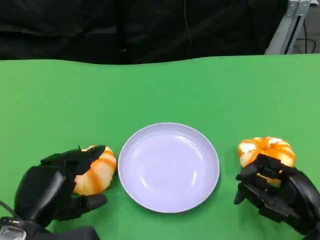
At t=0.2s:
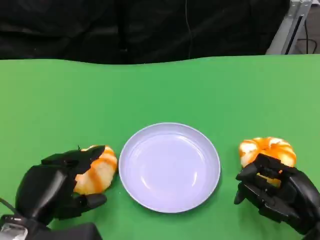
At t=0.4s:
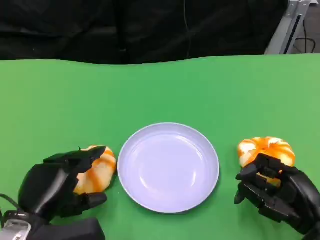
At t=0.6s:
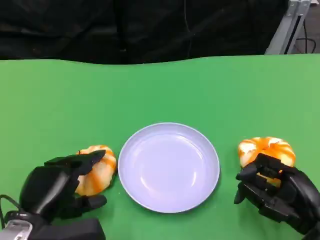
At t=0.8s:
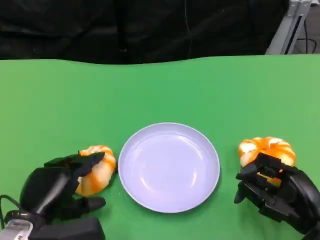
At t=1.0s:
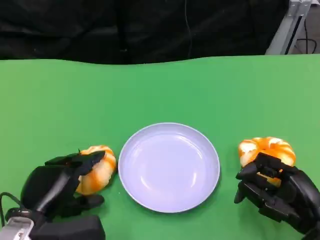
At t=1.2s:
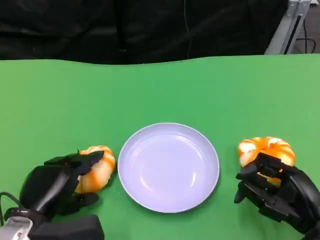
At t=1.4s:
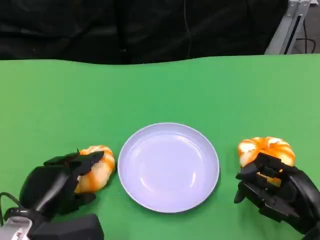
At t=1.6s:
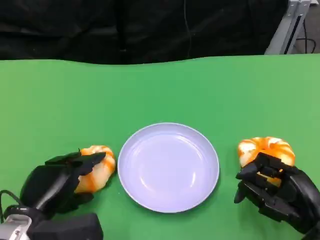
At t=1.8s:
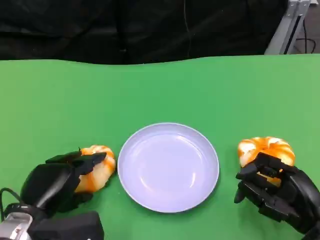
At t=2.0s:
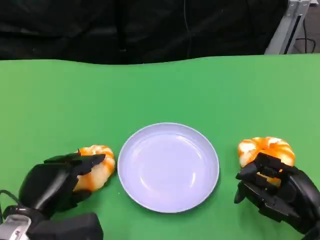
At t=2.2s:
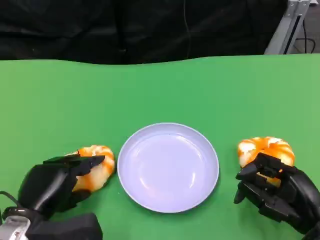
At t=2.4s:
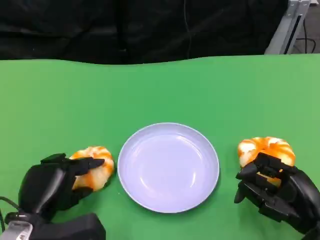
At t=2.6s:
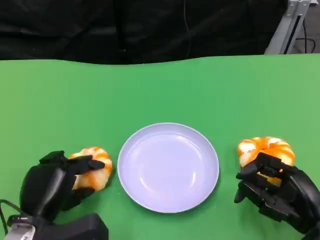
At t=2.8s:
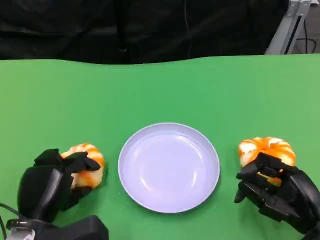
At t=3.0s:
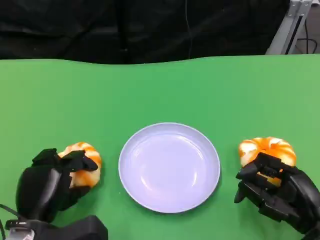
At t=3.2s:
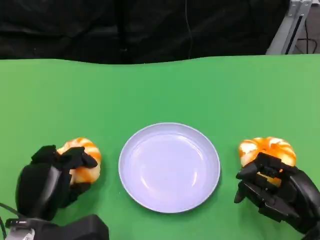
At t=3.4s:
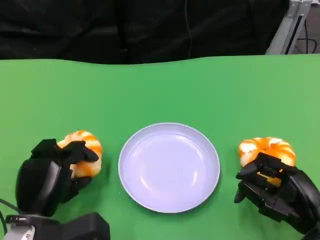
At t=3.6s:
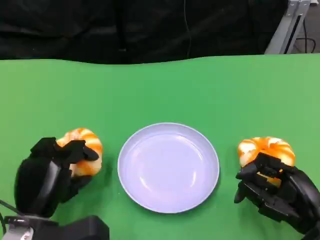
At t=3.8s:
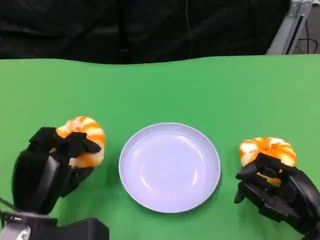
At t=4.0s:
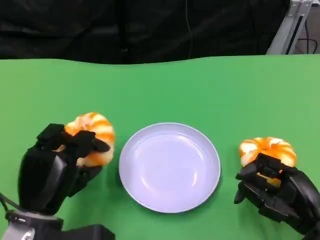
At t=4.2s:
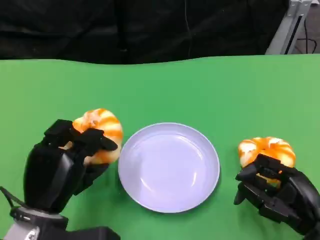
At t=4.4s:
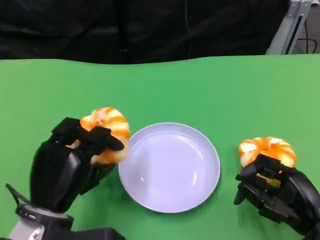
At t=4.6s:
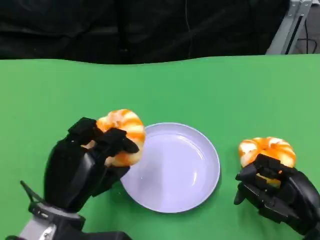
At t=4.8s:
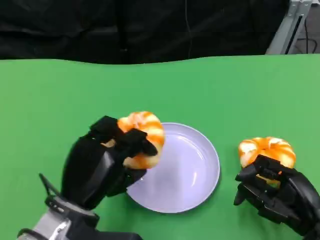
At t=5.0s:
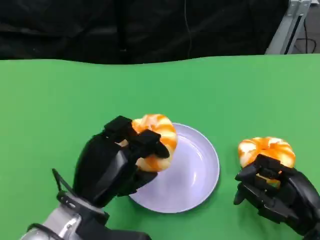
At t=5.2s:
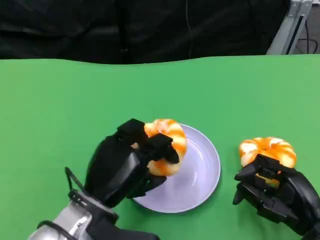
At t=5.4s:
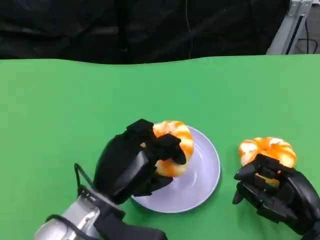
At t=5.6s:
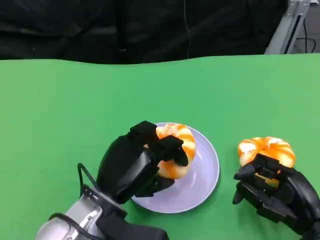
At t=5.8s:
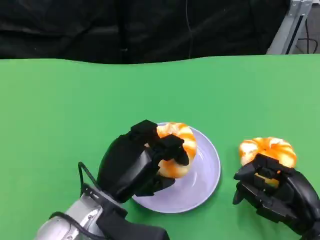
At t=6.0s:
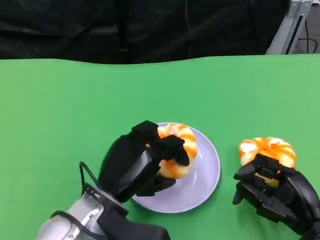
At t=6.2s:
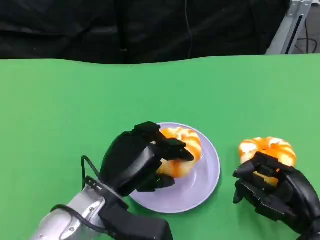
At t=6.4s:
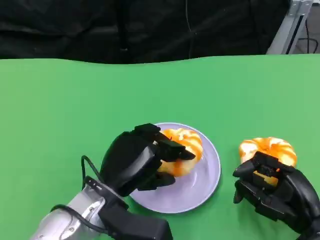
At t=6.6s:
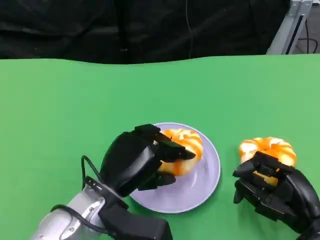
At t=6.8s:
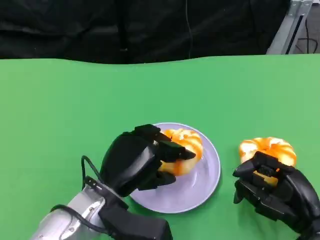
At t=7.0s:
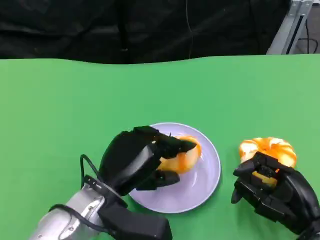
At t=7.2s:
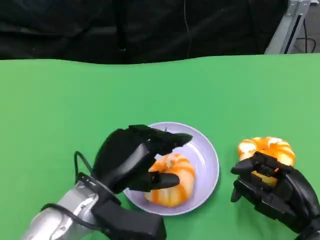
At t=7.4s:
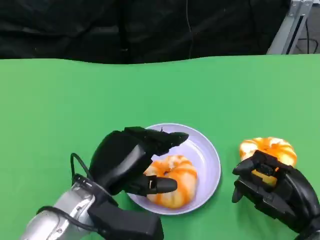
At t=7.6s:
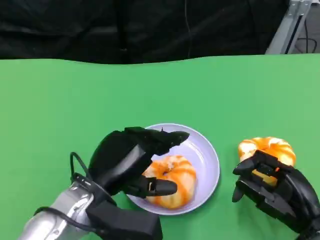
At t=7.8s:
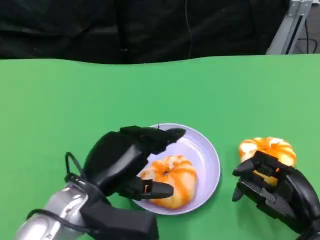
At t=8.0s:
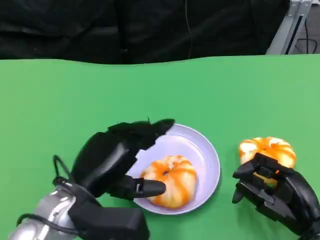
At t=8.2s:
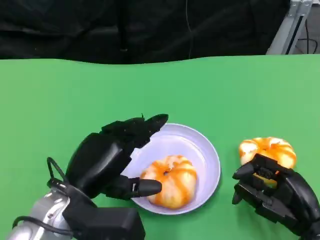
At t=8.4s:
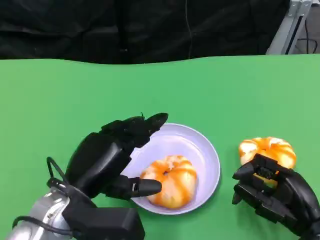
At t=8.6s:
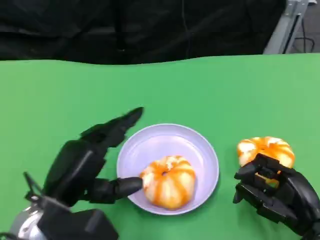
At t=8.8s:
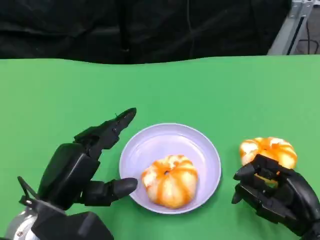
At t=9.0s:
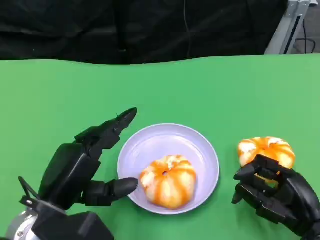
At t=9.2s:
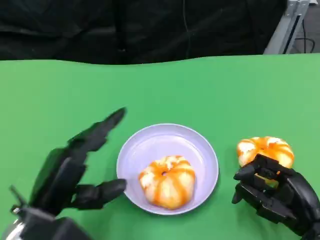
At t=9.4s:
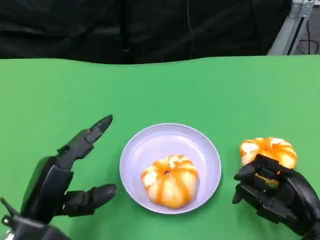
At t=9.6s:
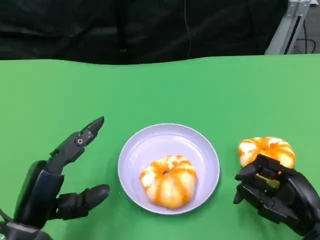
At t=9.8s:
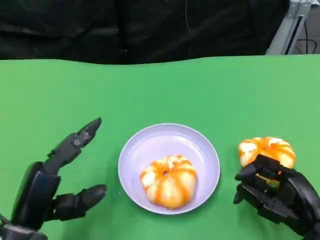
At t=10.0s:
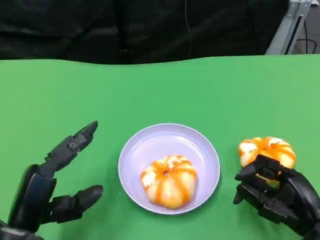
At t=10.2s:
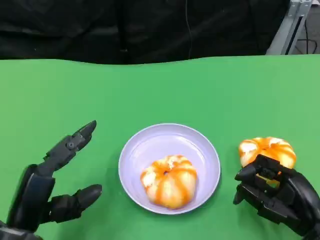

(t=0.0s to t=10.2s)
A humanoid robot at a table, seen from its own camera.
Task of the whole recording: Grasp the bread from the table and place it into the plate.
t=0.0s - t=3.0s: The hands make only small movements.
t=3.0s - t=4.4s: The left hand shifts about 5 cm upward.
t=4.4s - t=5.8s: The left hand goes approximately 5 cm to the right.
t=5.8s - t=7.2s: The hands stay close to where they were, moving slightly.
t=7.2s - t=8.8s: The left hand goes roughly 5 cm to the left.
t=8.8s - t=10.2s: The left hand ends up about 5 cm from where it was.

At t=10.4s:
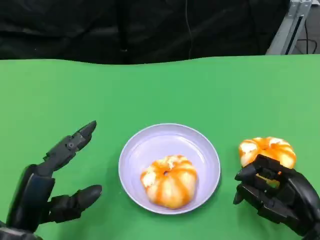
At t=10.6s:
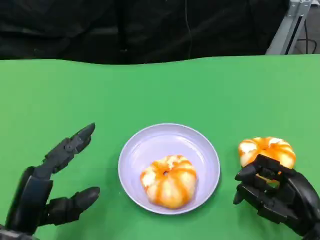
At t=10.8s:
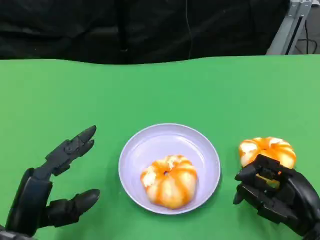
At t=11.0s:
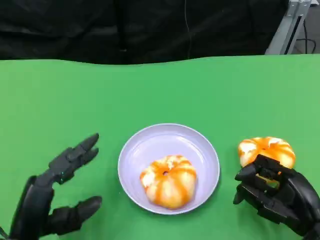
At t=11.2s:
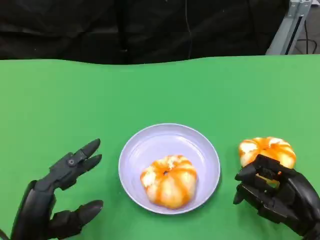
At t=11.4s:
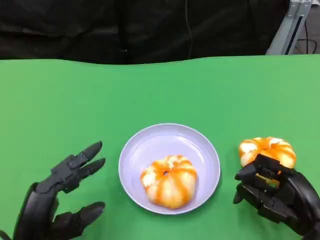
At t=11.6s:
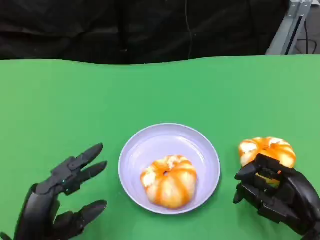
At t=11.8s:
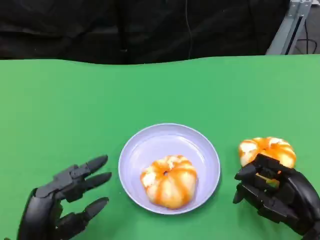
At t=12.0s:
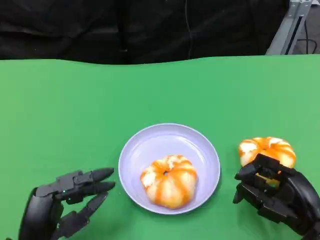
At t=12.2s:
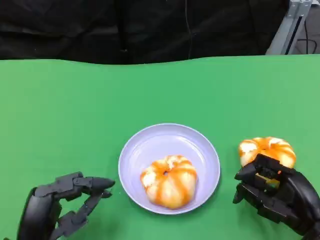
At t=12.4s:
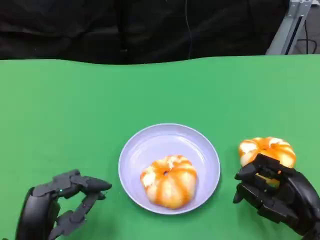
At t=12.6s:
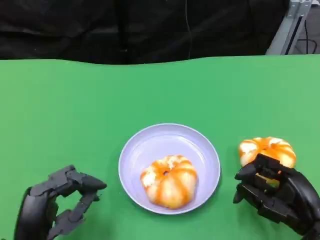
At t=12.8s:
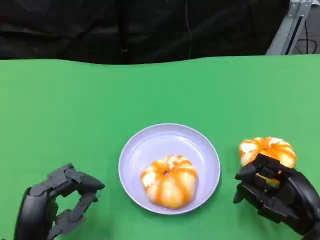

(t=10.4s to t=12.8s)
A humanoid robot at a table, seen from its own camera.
Task of the whole recording: Grasp the bread from the table and place it into the plate.
t=10.4s - t=11.6s: The hands move only a little.
t=11.6s - t=12.8s: The hands move only a little.

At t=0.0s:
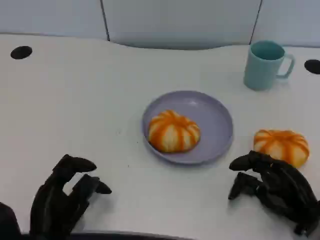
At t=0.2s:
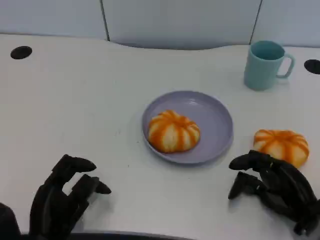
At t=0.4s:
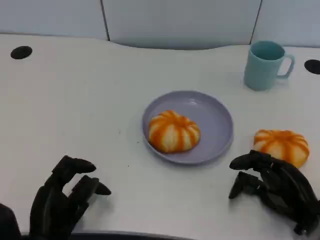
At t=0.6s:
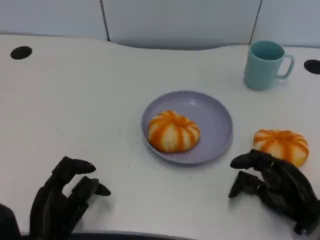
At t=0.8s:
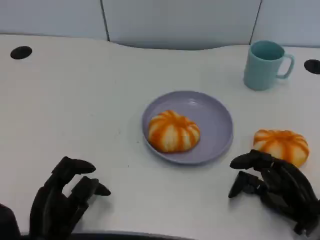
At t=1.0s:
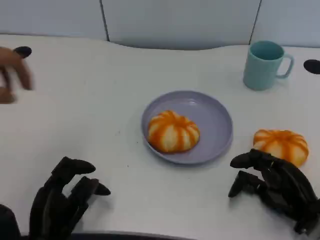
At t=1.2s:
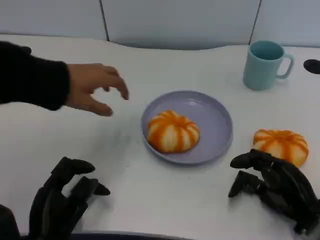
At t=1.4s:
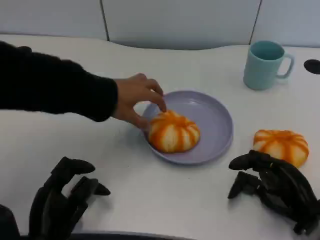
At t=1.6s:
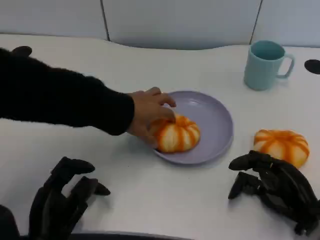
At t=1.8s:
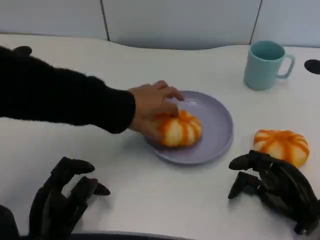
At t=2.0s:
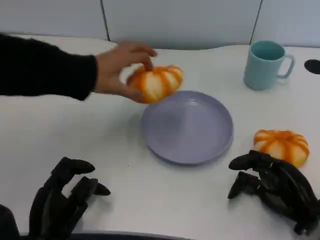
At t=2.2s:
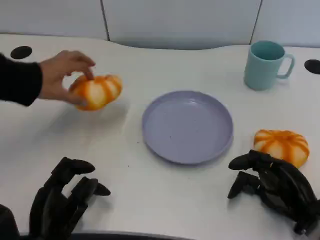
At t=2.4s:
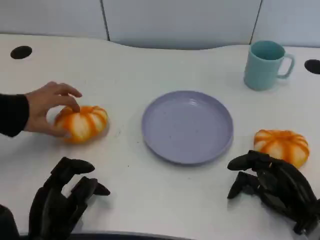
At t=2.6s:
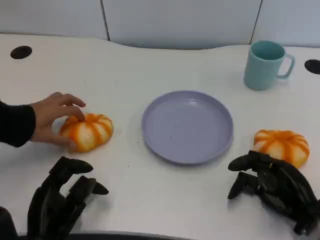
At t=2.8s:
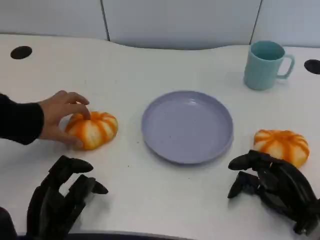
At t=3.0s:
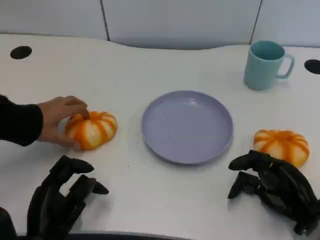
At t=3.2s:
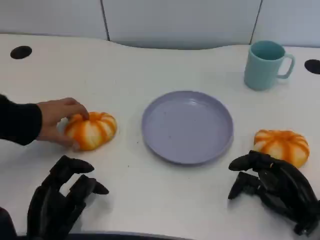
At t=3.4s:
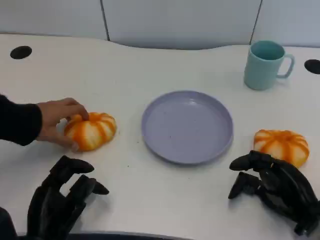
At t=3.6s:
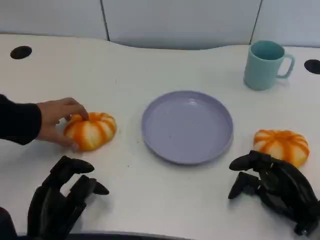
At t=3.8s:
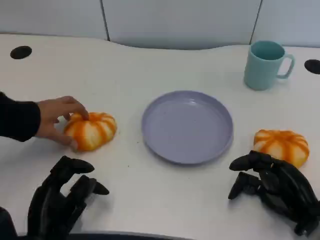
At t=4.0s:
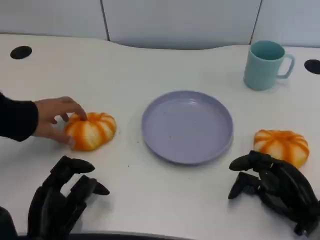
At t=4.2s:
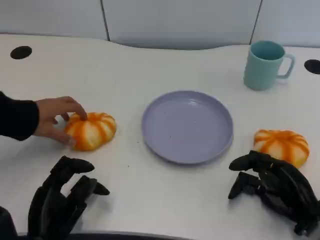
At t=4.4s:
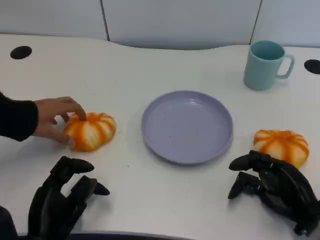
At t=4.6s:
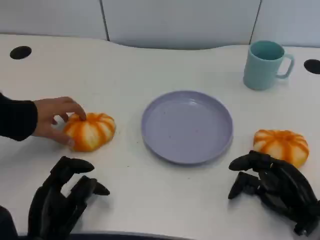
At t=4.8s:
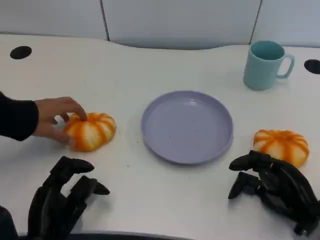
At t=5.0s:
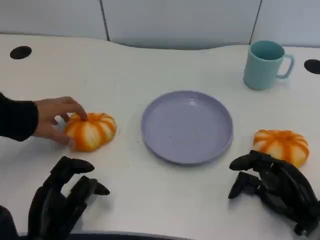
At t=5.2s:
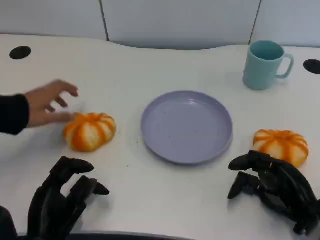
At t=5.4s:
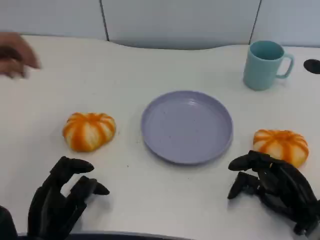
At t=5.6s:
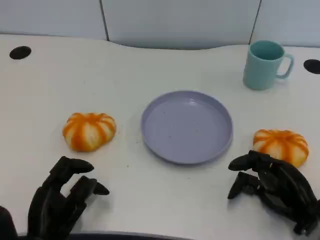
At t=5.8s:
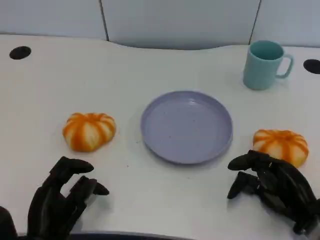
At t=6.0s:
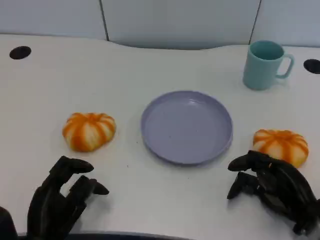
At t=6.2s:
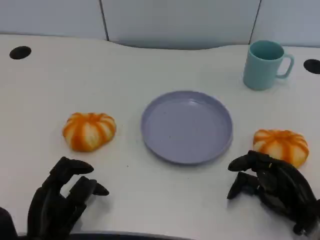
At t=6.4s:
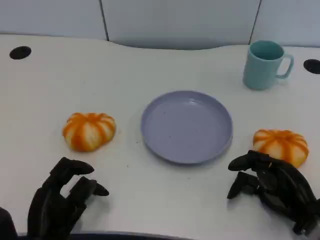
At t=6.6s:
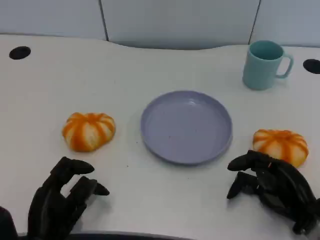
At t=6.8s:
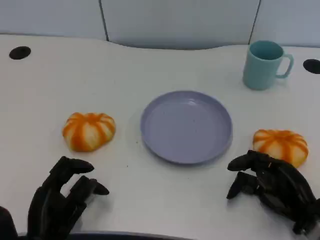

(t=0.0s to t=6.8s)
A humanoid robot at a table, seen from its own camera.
Task of the whole recording: Grasp the bread from the table and place it into the plate.
t=2.8s - t=6.8s: The two hands keep their place.
